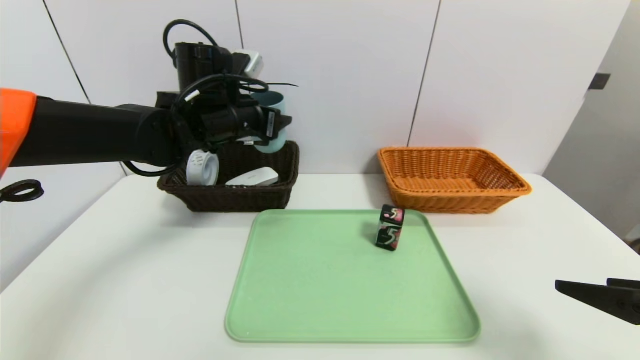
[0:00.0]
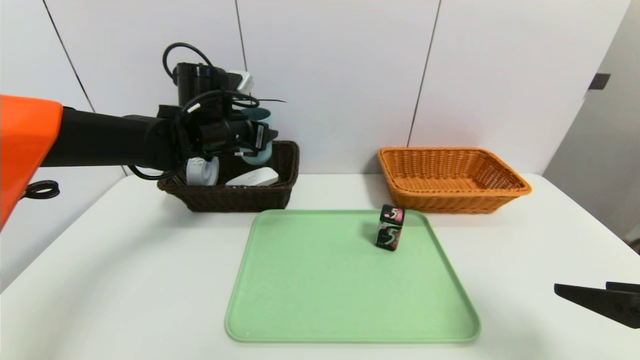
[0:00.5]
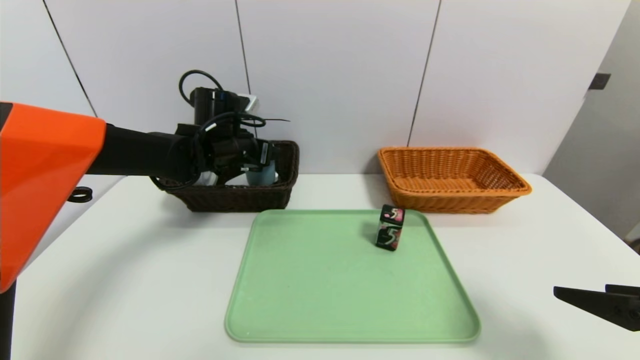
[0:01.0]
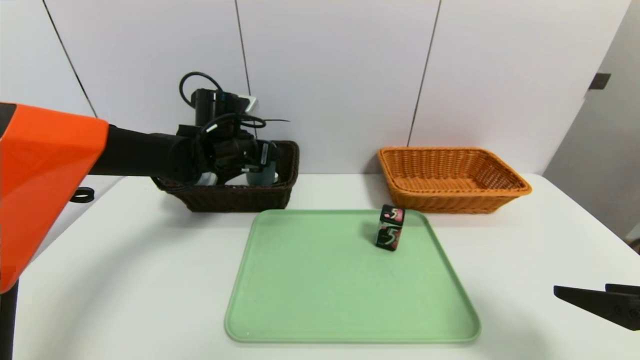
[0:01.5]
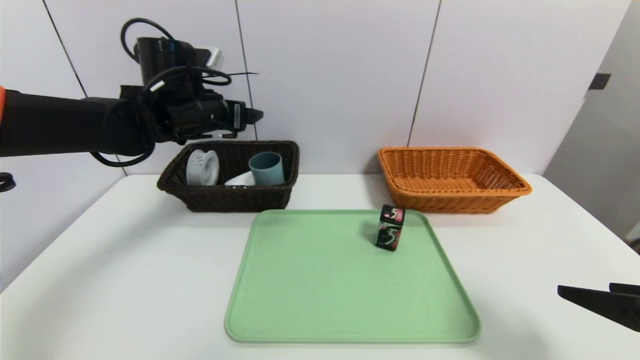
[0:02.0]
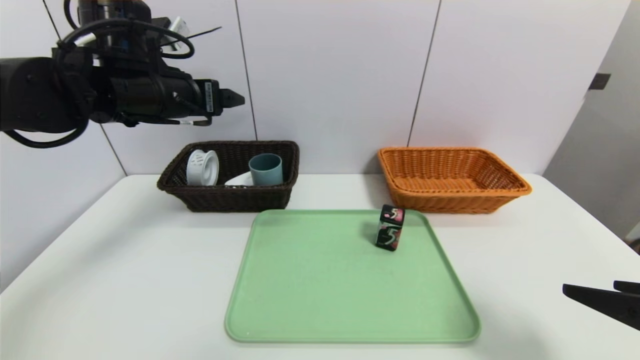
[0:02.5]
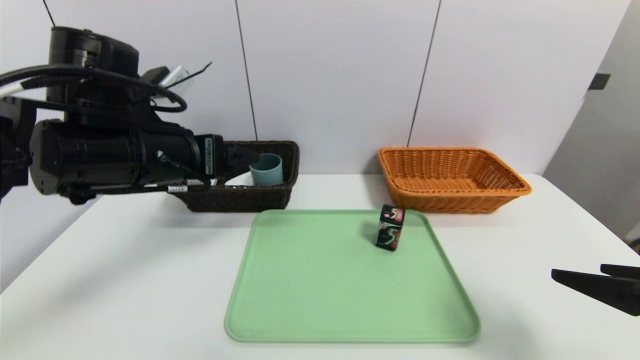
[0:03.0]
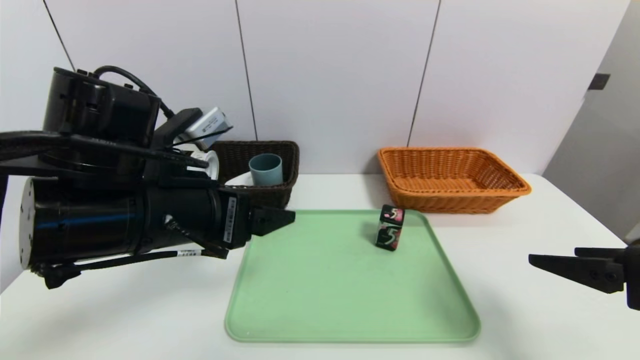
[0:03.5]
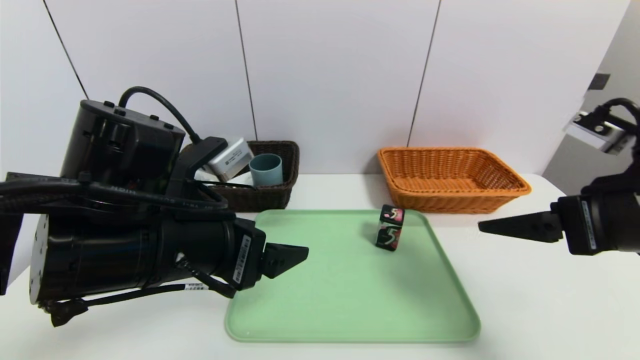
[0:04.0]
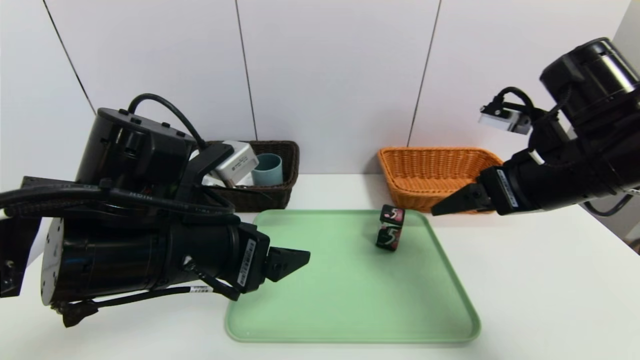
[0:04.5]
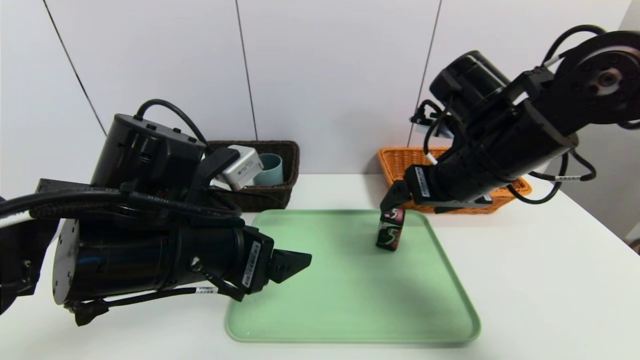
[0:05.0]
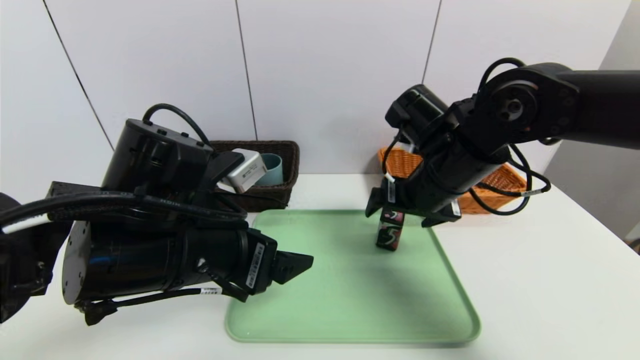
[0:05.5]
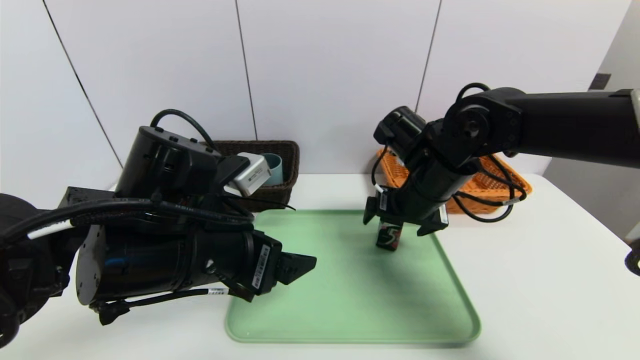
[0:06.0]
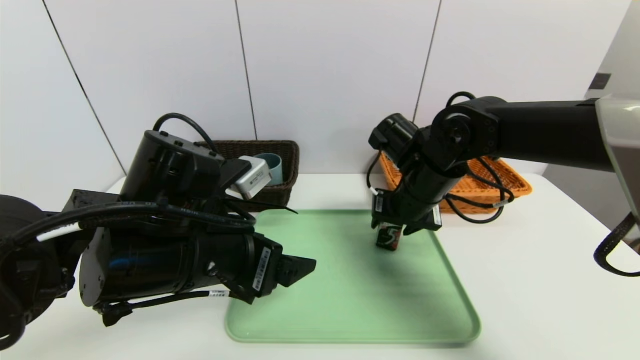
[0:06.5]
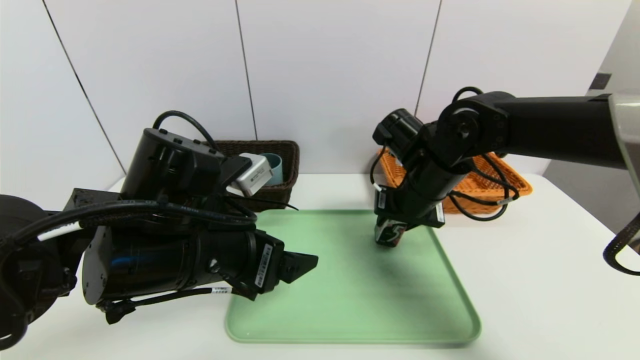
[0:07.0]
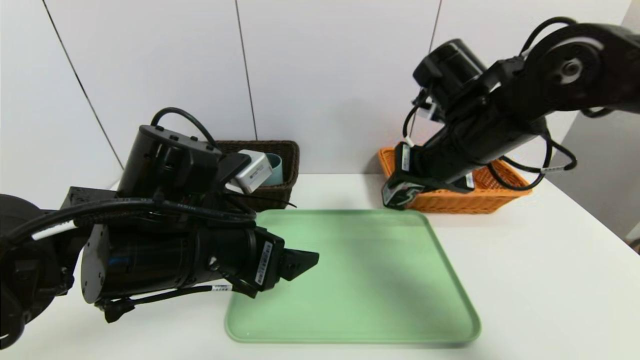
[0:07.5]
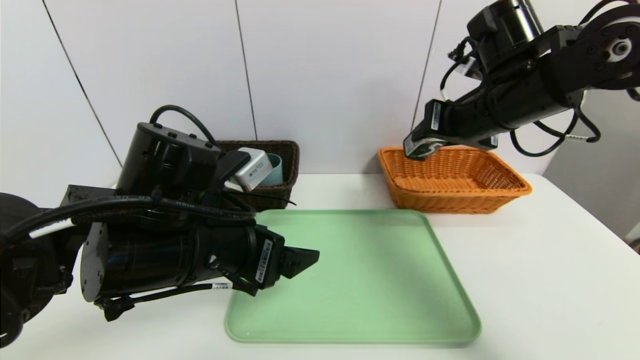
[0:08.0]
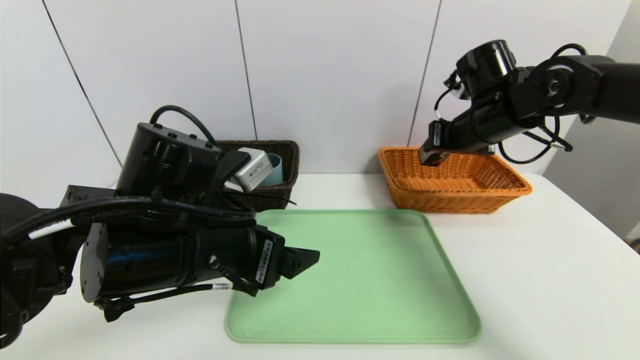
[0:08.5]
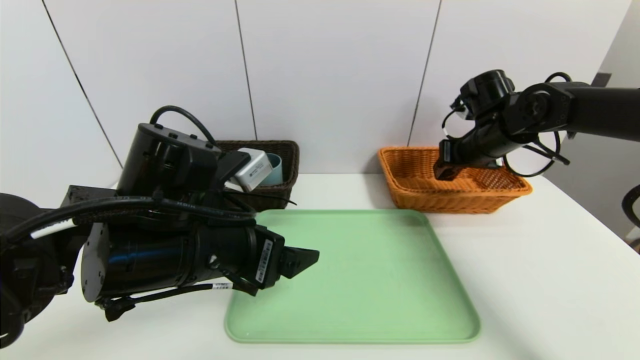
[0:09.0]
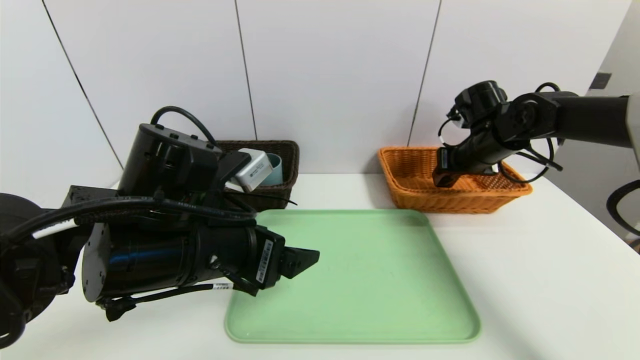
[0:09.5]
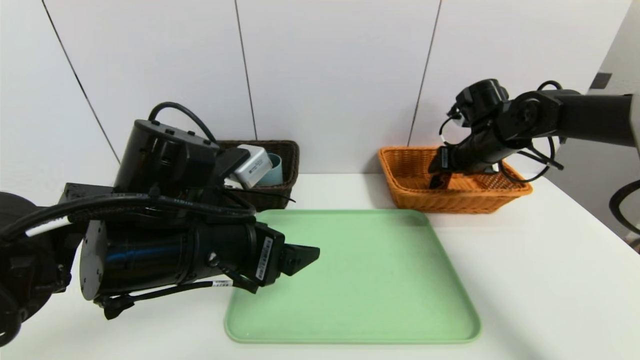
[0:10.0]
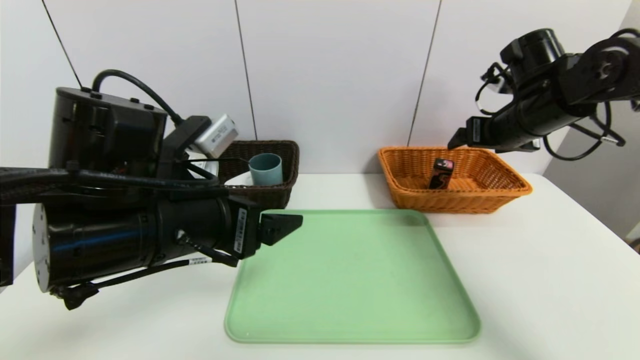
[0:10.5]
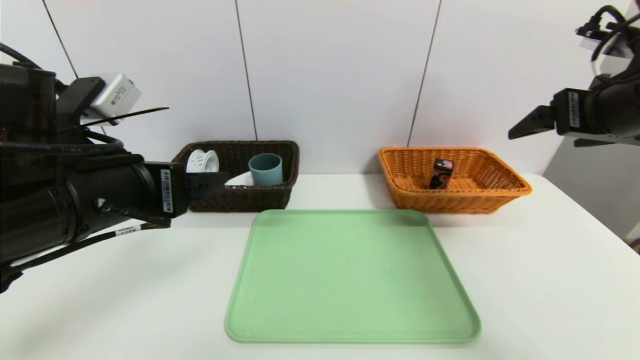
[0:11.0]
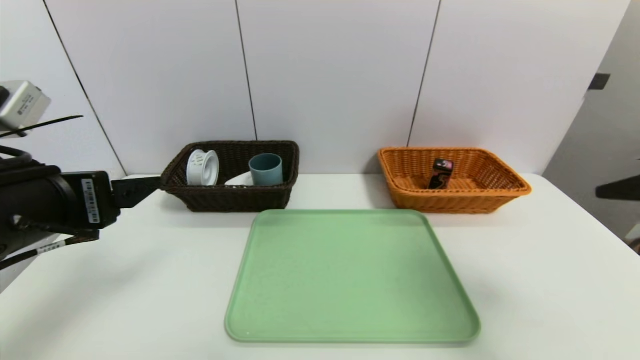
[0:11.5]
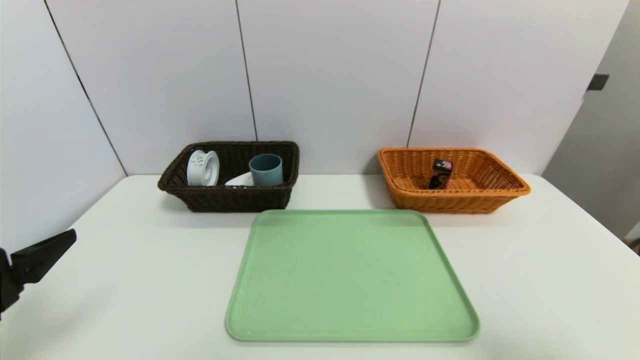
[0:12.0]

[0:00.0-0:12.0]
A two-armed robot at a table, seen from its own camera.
Task of the whole recording: place the food in the right basket with the right gripper, and place the non food items in the left basket with the left gripper.
Step, 0:02.0 to 0:10.0: Grasp the square chewing gum and put it in the right basket.
0:00.0 to 0:02.0: The left gripper goes approximately 5 cm to the left, and opens its fingers.
0:02.0 to 0:04.0: The left gripper shifts some 20 cm backward. The right gripper travels forward by roughly 10 cm.
0:04.0 to 0:06.0: The right gripper heads forward, to the left and downward, covering some 20 cm.
0:06.0 to 0:08.0: The right gripper travels upward and to the right by about 10 cm, and closes up.
0:08.0 to 0:10.0: The right gripper heads forward, downward and to the right, covering about 15 cm, and opens up.
0:10.0 to 0:12.0: The left gripper moves to the left and backward, roughly 20 cm. The right gripper shifts about 40 cm backward.

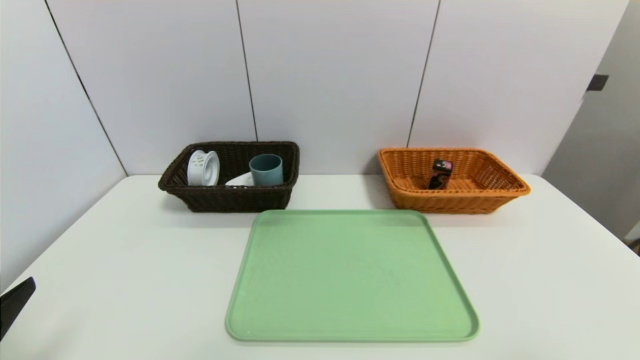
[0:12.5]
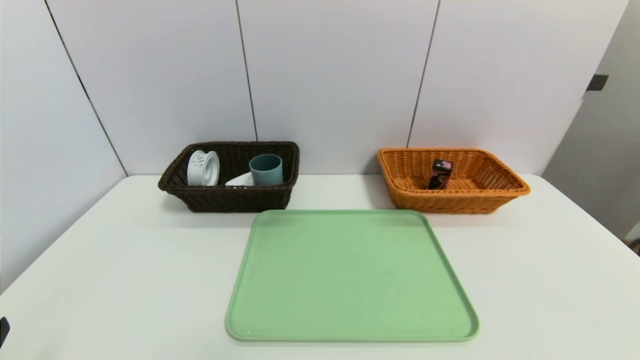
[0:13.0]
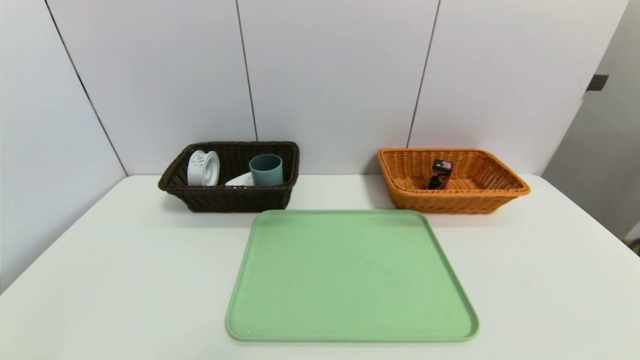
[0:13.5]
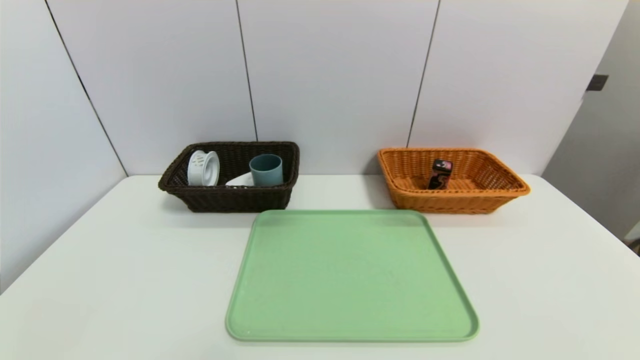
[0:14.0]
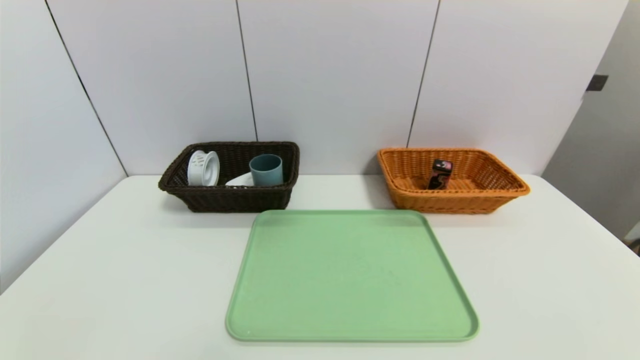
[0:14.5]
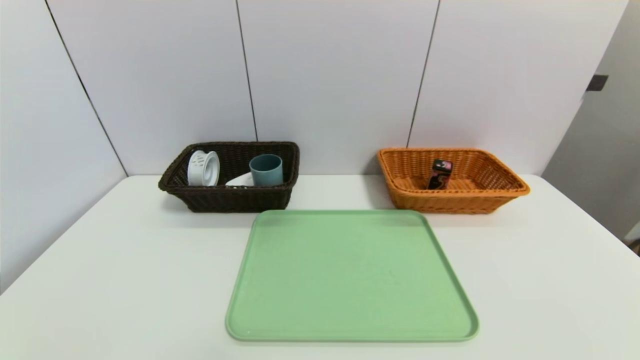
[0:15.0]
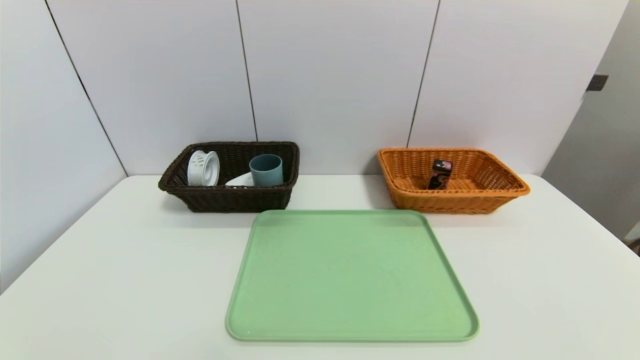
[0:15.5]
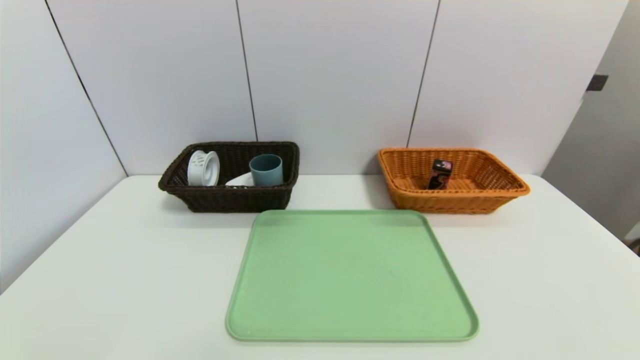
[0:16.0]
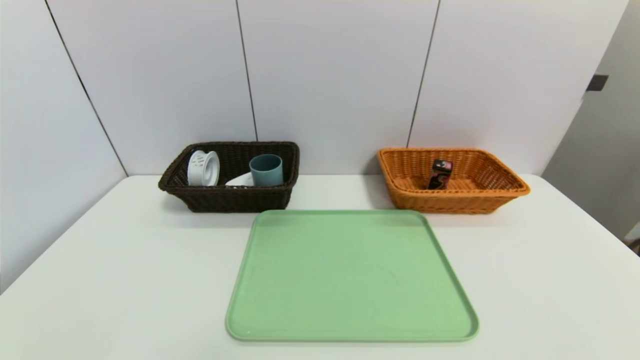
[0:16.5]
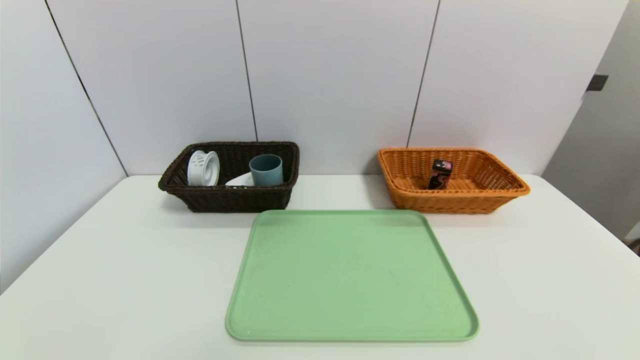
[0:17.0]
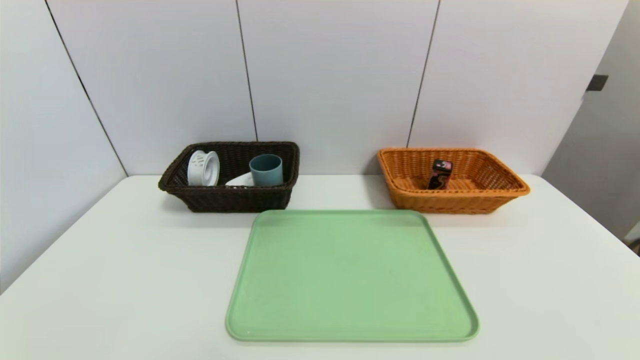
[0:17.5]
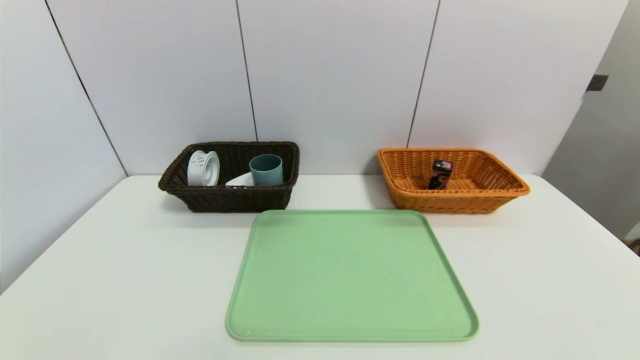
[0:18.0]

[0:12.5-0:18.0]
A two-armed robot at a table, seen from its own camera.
Task of the whole recording: place the food in the right basket with the right gripper, and place the non food items in the left basket with the left gripper.
0:12.5 to 0:14.5: The left gripper shifts about 10 cm downward and backward.
